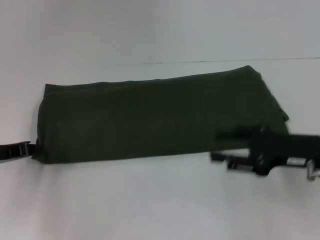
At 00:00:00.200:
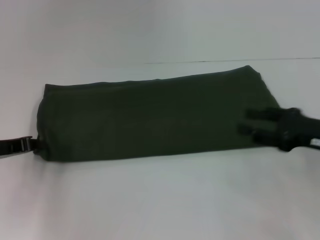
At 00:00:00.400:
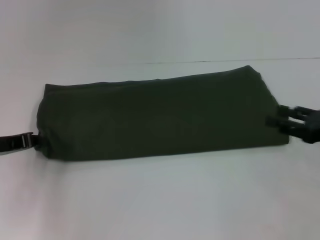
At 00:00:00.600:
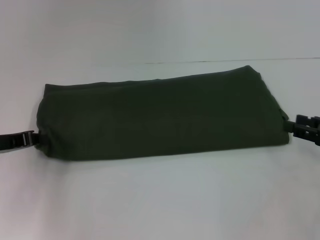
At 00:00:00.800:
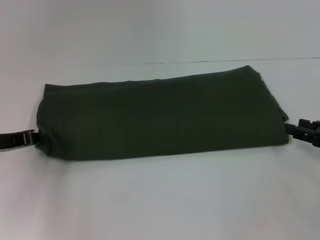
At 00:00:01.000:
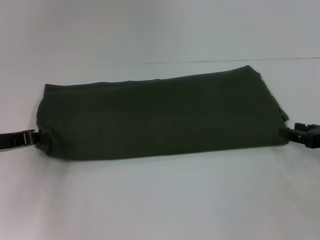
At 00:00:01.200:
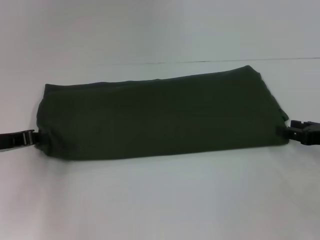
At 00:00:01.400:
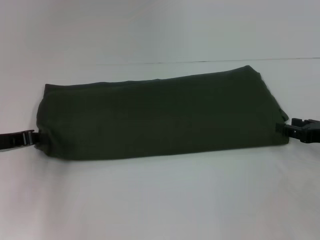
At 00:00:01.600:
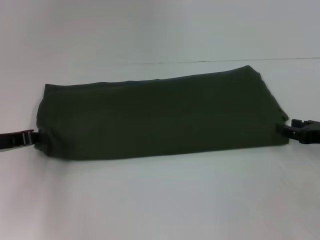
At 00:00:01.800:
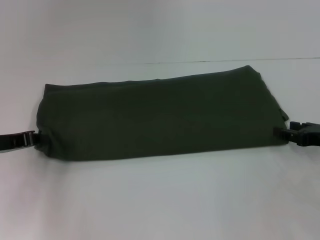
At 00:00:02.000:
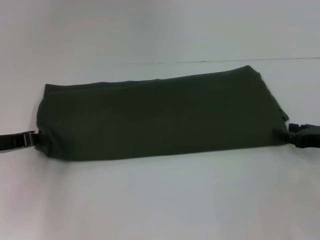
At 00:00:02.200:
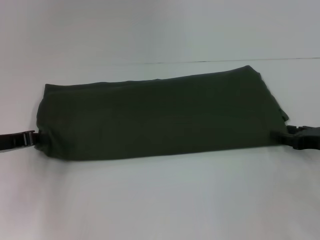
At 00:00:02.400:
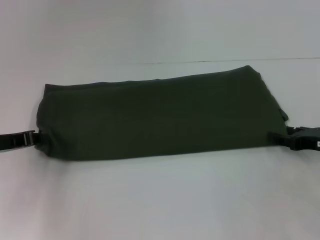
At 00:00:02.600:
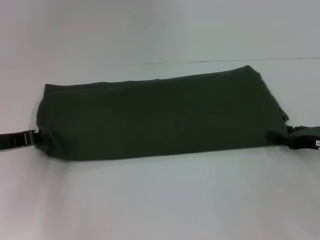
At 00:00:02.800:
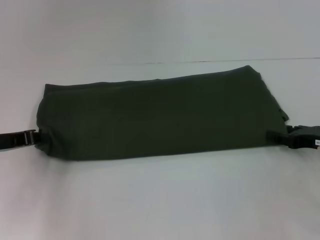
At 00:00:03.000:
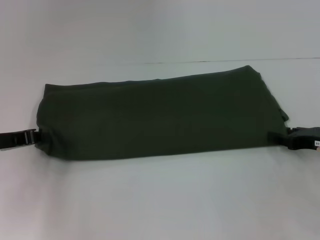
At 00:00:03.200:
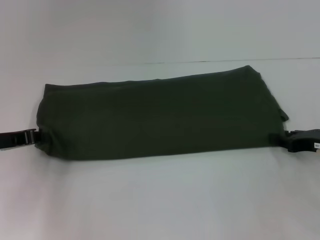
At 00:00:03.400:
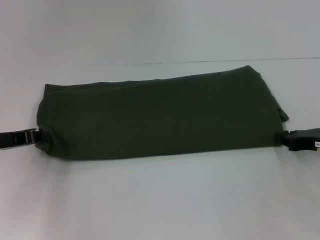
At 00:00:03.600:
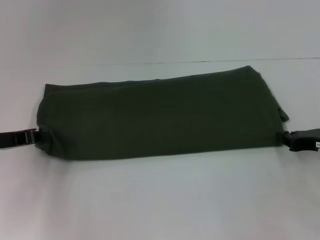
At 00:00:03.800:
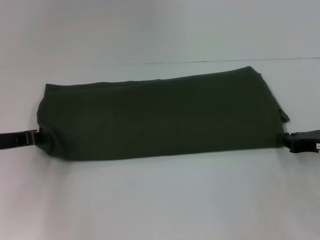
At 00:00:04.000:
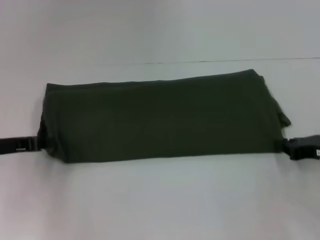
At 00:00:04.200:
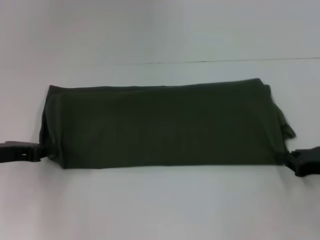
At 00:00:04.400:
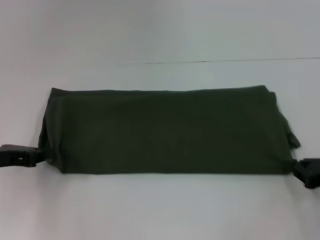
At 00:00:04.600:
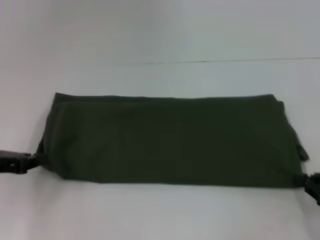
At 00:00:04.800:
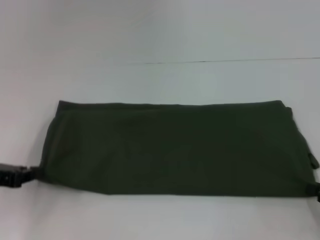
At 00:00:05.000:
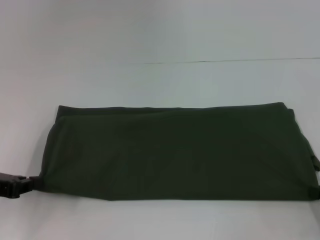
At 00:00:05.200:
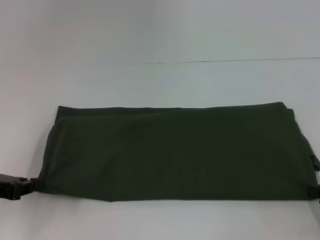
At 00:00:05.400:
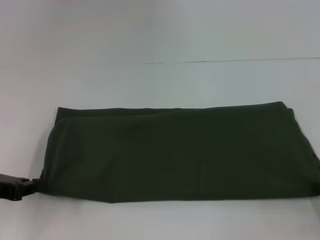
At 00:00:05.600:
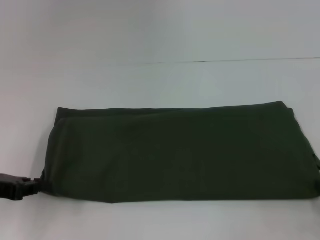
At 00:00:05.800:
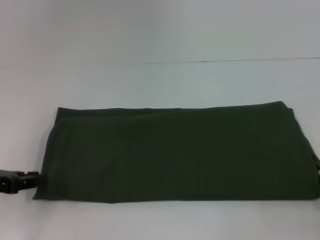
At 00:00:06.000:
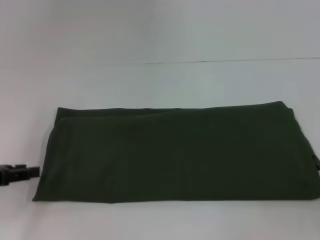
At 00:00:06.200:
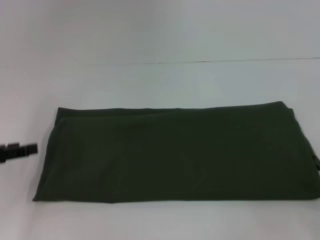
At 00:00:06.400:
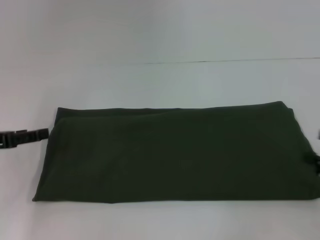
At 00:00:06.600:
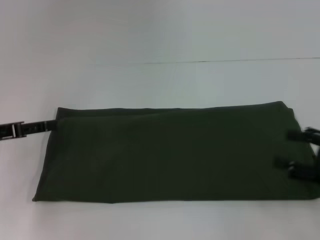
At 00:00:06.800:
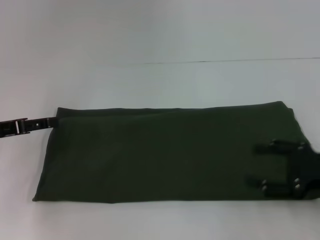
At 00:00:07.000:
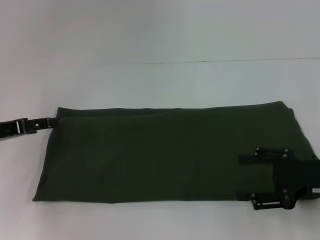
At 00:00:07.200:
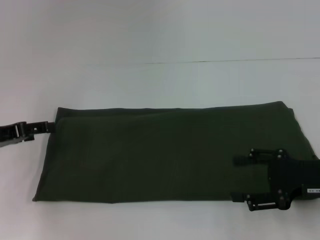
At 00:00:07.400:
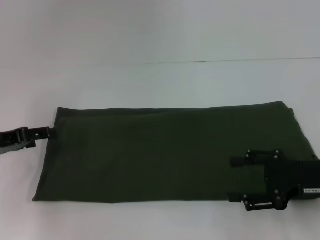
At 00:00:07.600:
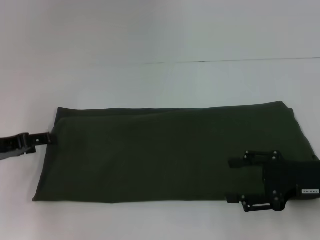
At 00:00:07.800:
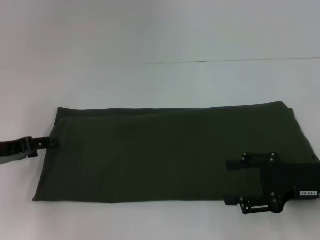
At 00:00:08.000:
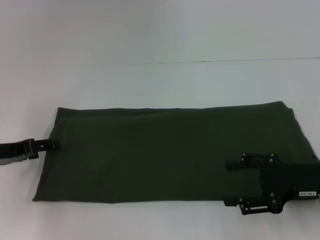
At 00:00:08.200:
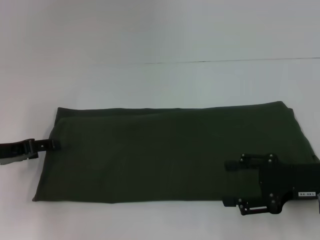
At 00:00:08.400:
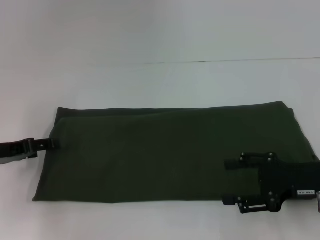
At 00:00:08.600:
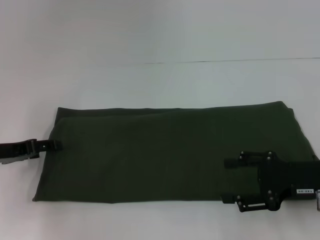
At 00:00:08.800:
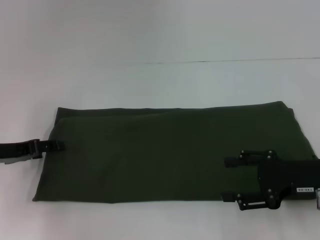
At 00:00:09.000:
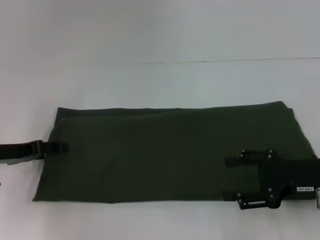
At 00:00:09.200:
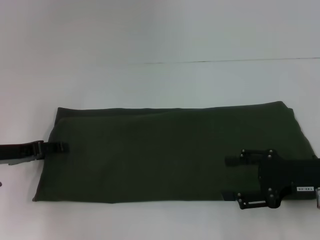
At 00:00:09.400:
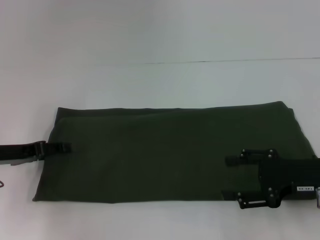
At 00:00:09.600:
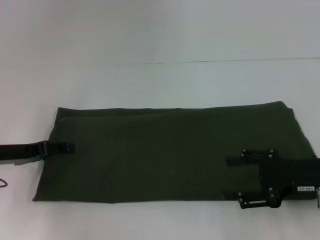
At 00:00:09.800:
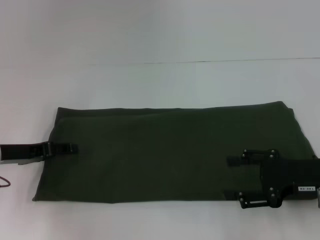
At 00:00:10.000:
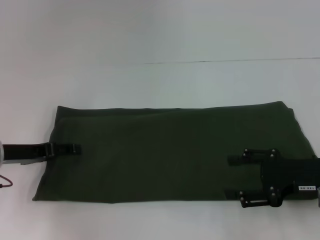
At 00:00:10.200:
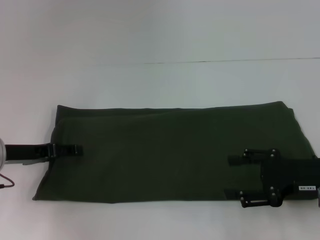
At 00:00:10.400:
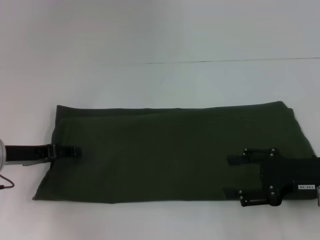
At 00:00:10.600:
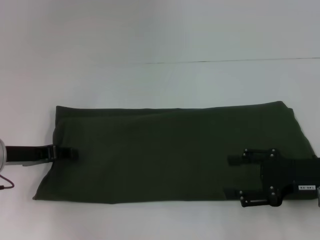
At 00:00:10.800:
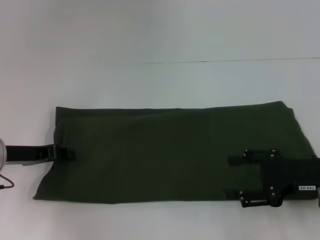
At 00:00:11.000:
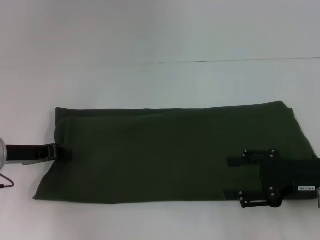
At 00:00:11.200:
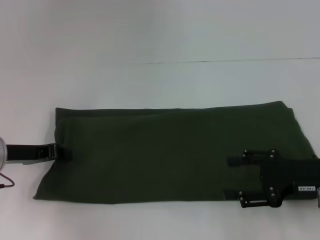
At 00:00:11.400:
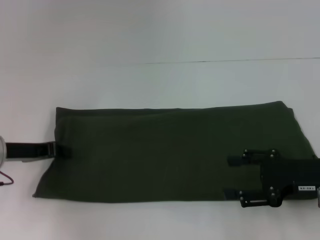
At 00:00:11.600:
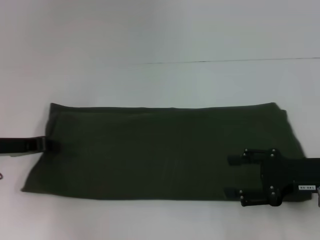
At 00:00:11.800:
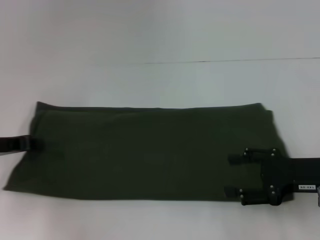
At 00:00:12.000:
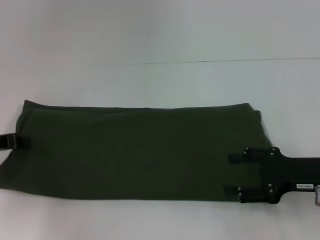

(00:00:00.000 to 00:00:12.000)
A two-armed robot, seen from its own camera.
Step, 00:00:00.000 - 00:00:05.600: Pull the clothes with your right hand.
00:00:00.000 - 00:00:01.600: The right gripper moves to the right, roughly 10 cm.
00:00:01.600 - 00:00:03.000: The grippers stay close to where they were, moving slightly.
00:00:03.000 - 00:00:04.400: The right gripper shifts some 5 cm backward, and closes up.
00:00:04.400 - 00:00:06.000: The right gripper is displaced backward and to the right by about 10 cm, and opens.
00:00:06.000 - 00:00:07.600: The right gripper shifts roughly 15 cm to the left and forward, and opens up. The left gripper moves some 5 cm, and opens its fingers.
00:00:07.600 - 00:00:10.400: There are only small adjustments of the grippers.
00:00:10.400 - 00:00:12.000: The left gripper shifts by roughly 5 cm, and closes.
